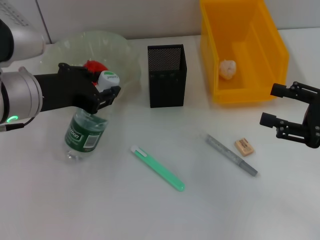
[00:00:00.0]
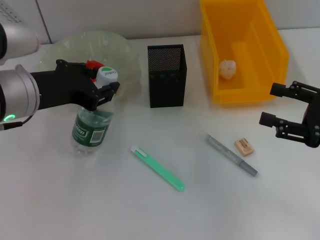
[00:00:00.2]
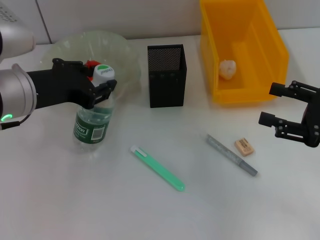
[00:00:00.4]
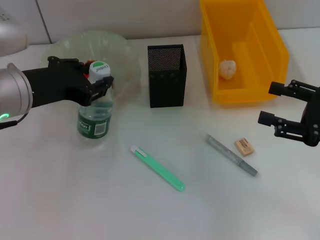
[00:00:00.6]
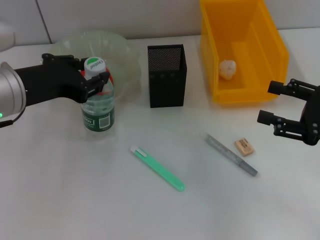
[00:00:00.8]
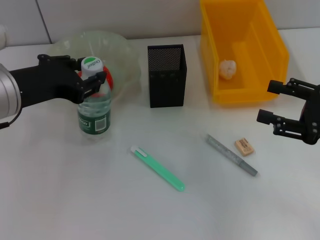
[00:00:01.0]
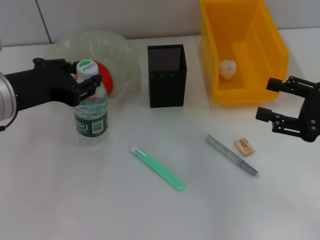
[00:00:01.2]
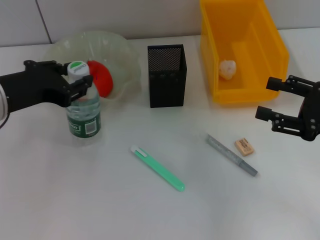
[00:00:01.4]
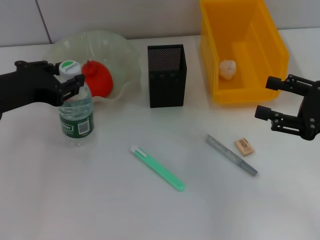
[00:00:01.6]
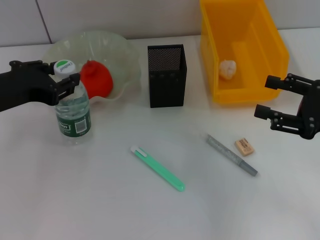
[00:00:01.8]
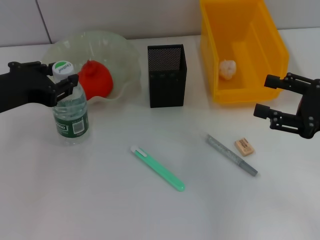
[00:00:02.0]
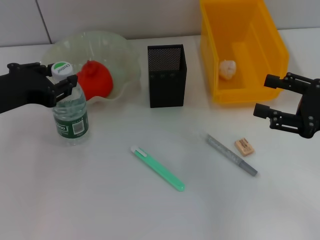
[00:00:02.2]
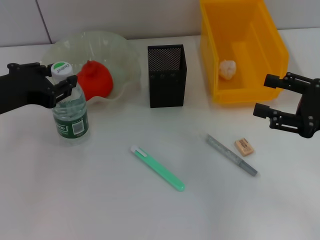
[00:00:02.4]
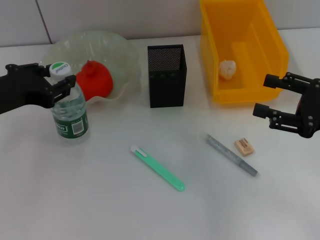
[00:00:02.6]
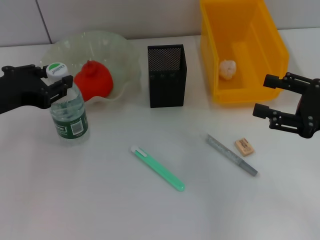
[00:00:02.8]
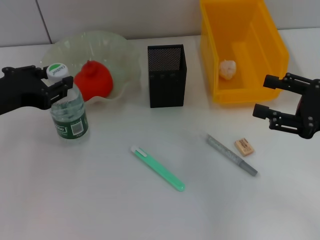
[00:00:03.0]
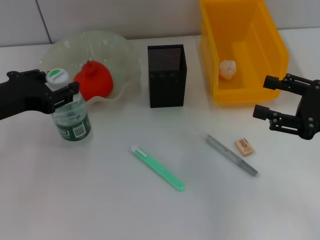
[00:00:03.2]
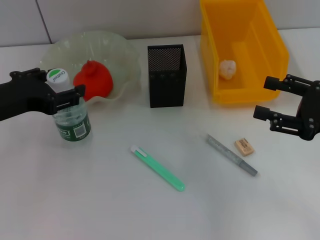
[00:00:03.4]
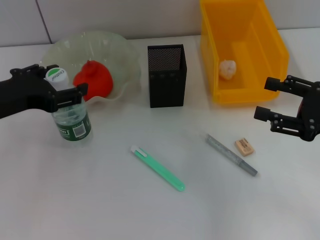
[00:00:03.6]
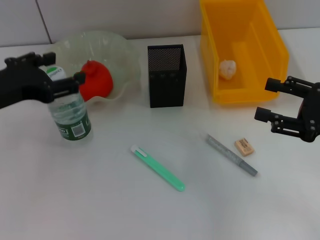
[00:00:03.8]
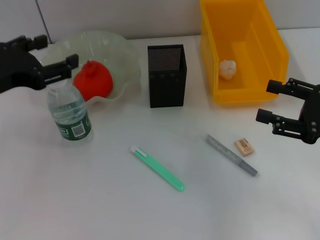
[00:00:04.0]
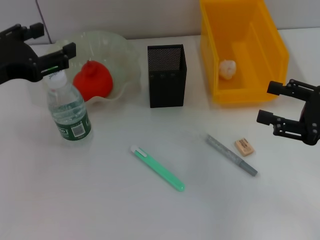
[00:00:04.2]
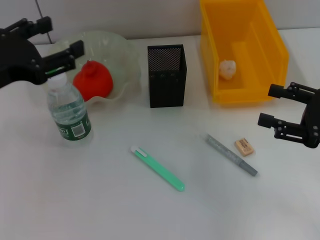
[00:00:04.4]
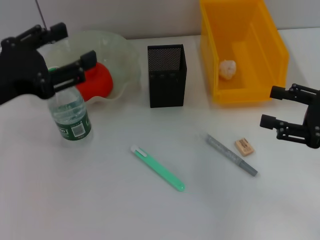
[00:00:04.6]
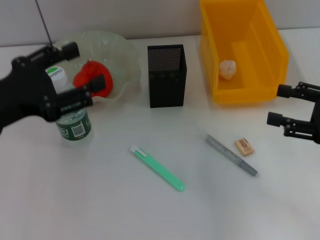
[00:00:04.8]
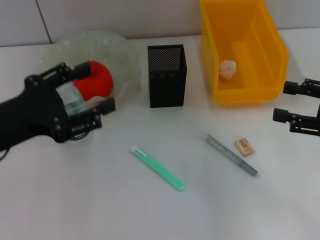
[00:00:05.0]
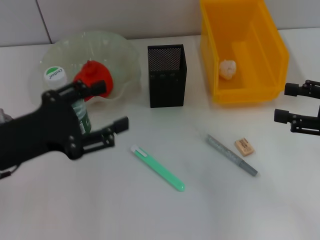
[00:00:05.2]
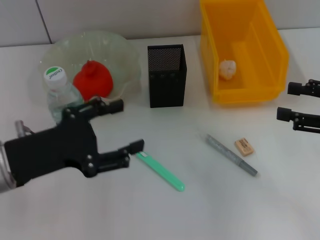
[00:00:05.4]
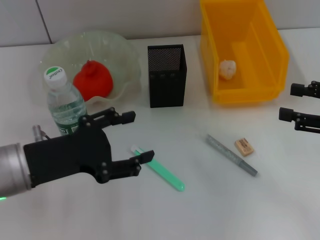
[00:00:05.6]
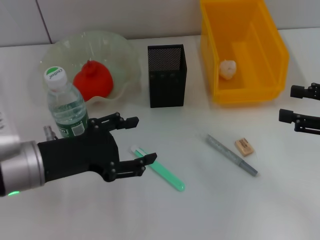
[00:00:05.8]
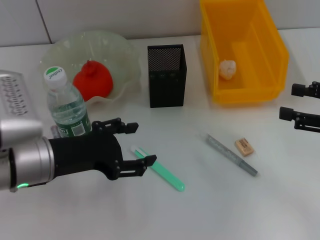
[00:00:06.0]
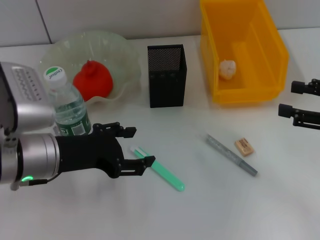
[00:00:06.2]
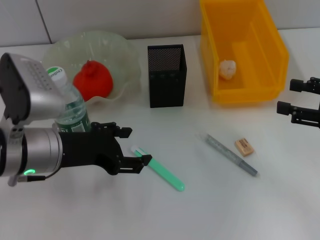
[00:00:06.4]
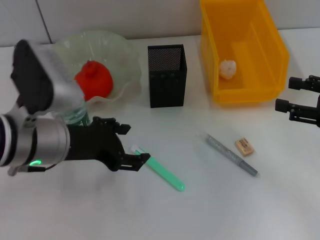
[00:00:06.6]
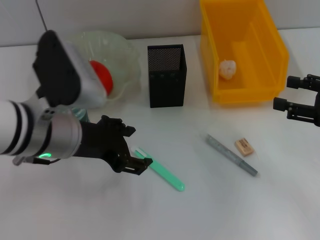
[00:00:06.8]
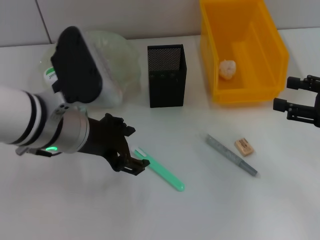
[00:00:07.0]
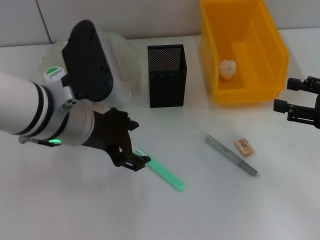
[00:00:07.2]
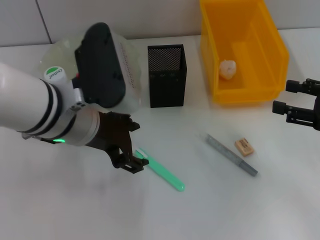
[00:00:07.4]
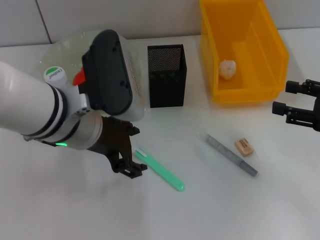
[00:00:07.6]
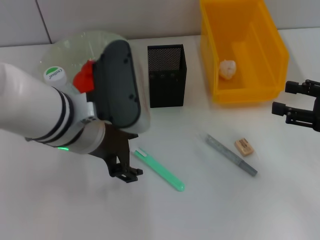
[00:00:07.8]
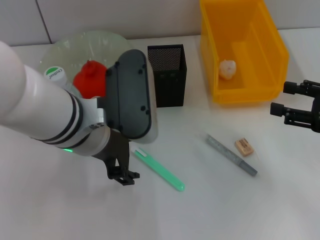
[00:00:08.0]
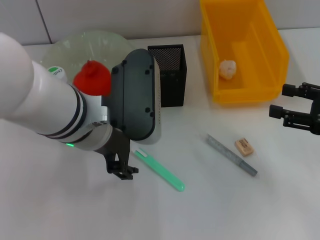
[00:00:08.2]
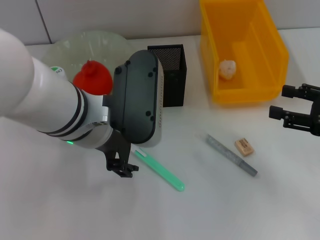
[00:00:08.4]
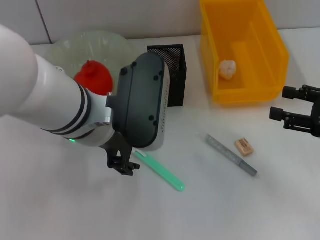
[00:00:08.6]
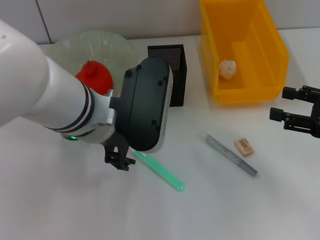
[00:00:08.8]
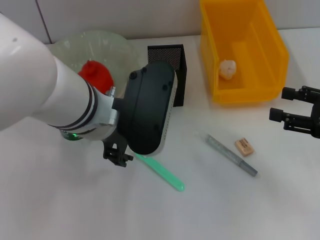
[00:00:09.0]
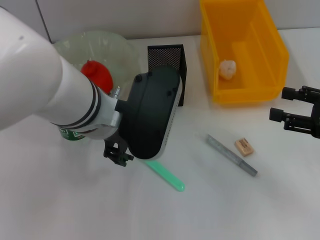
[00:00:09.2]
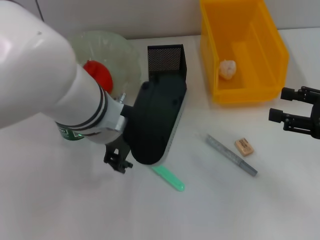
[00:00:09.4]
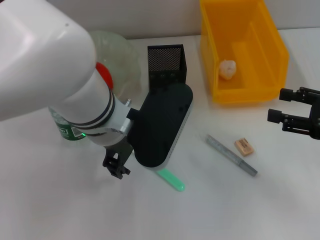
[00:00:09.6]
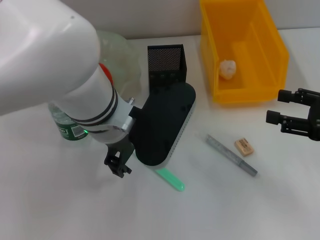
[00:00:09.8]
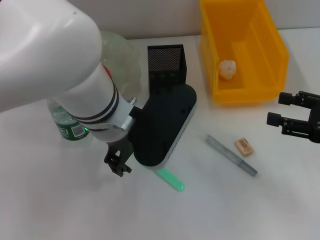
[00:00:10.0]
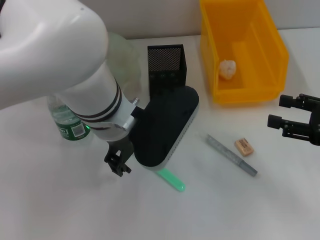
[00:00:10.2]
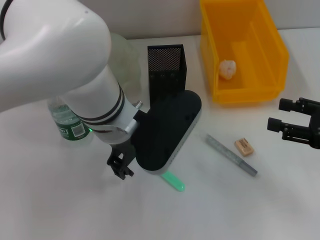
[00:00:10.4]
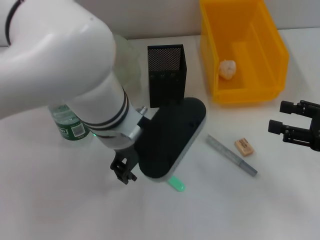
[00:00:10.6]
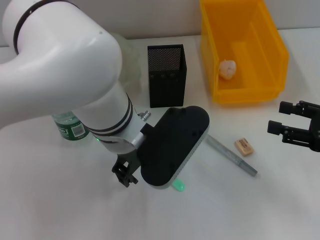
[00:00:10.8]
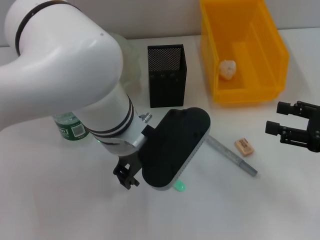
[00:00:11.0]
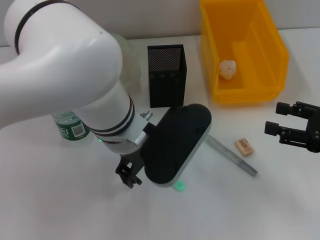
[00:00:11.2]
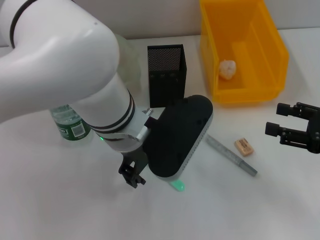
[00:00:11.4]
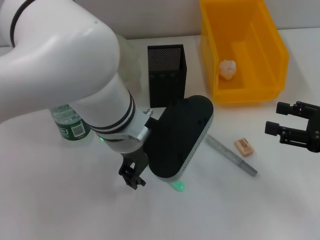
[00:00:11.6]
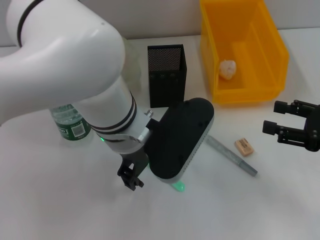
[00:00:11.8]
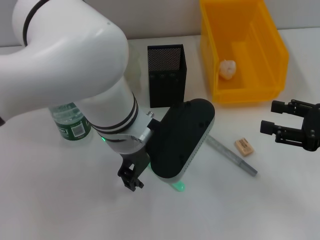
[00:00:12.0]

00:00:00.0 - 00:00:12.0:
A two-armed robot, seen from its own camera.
Step, 00:00:00.0 - 00:00:03.8: Place the water bottle on the table with the left hand.
00:00:00.0 - 00:00:01.6: The grippers stay close to where they were, moving slightly.
00:00:01.6 - 00:00:03.0: The grippers make only small movements.
00:00:03.0 - 00:00:04.4: The left gripper opens up.
00:00:04.4 - 00:00:06.0: The left gripper heads downward and to the right, covering approximately 10 cm.
00:00:06.0 - 00:00:07.6: The left gripper shifts roughly 10 cm to the right and upward.
00:00:10.4 - 00:00:12.0: The grippers make only small movements.

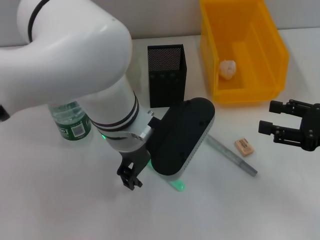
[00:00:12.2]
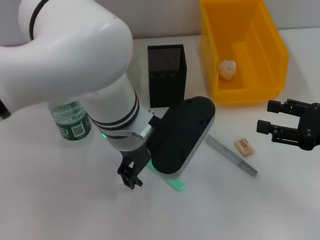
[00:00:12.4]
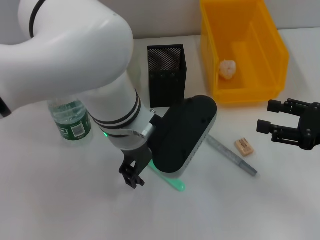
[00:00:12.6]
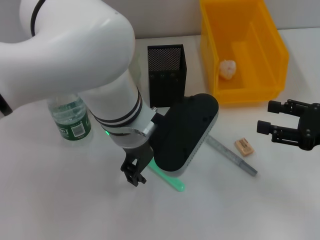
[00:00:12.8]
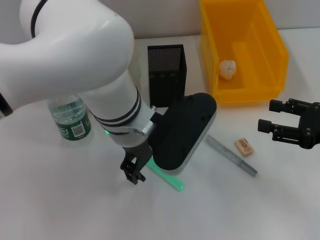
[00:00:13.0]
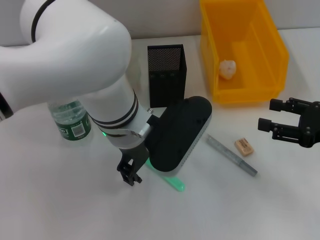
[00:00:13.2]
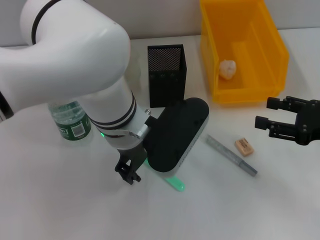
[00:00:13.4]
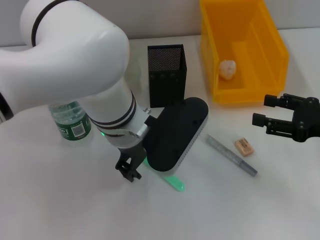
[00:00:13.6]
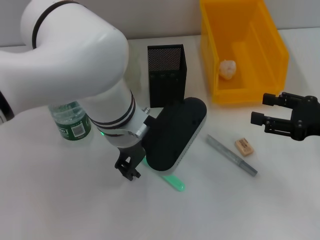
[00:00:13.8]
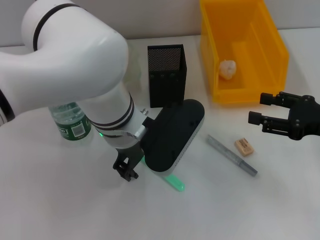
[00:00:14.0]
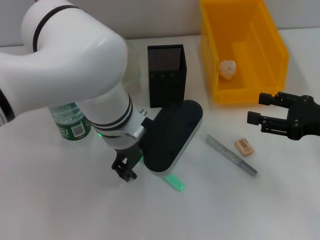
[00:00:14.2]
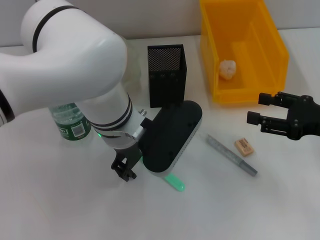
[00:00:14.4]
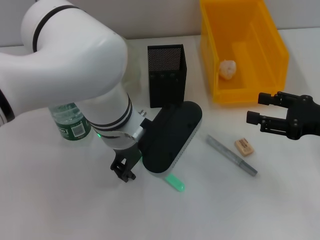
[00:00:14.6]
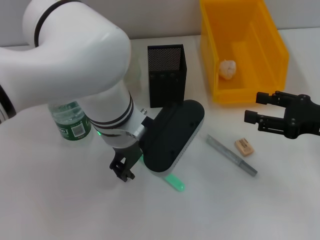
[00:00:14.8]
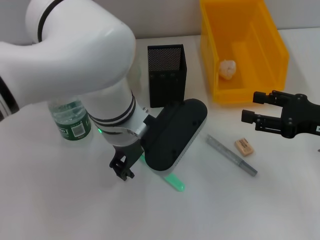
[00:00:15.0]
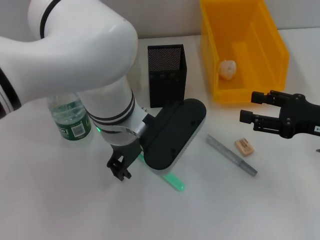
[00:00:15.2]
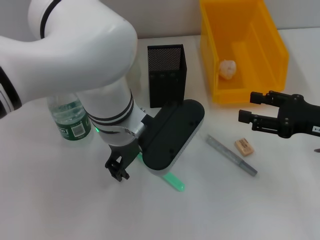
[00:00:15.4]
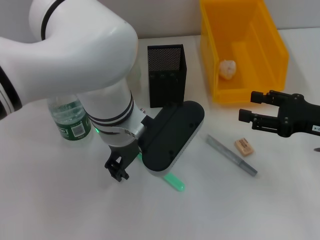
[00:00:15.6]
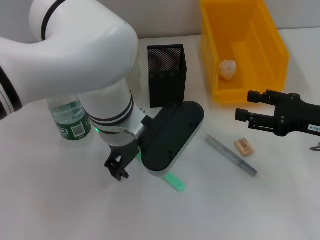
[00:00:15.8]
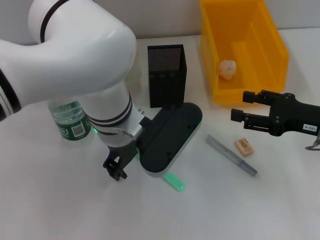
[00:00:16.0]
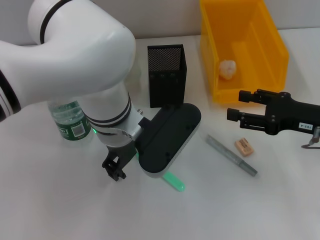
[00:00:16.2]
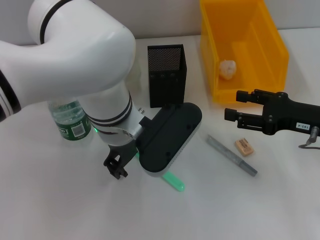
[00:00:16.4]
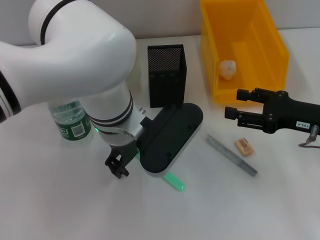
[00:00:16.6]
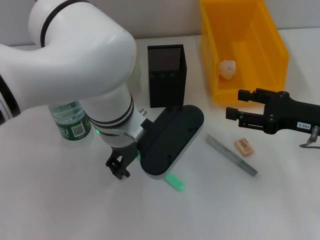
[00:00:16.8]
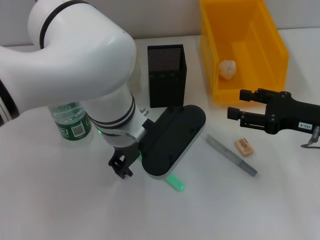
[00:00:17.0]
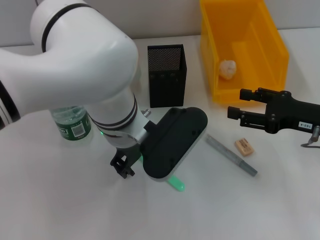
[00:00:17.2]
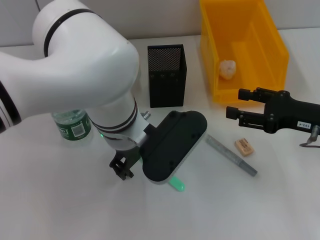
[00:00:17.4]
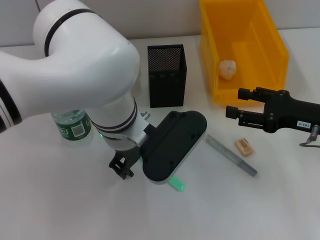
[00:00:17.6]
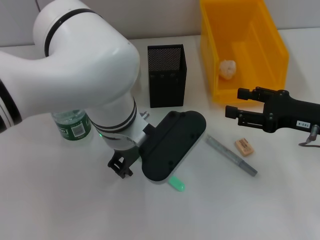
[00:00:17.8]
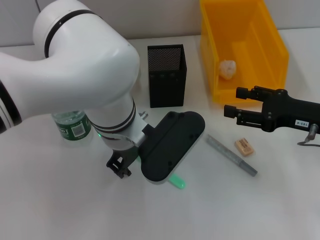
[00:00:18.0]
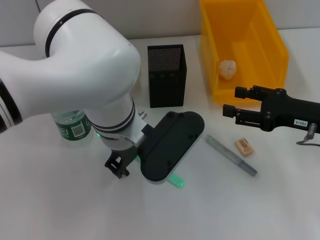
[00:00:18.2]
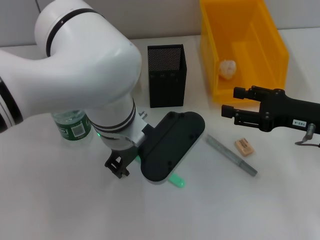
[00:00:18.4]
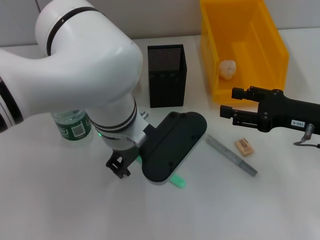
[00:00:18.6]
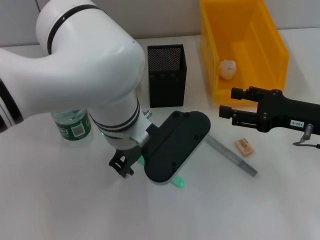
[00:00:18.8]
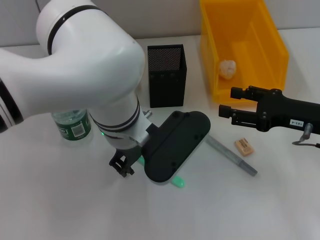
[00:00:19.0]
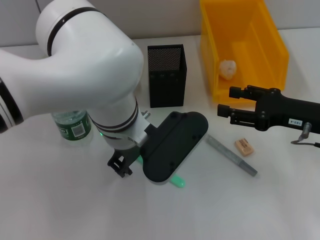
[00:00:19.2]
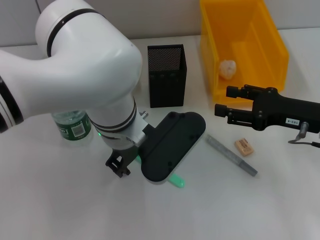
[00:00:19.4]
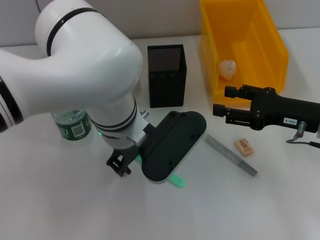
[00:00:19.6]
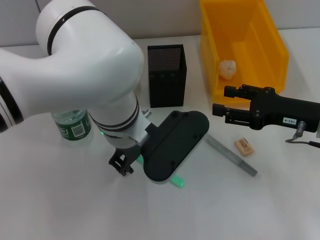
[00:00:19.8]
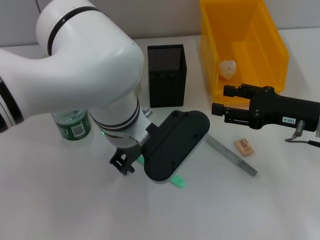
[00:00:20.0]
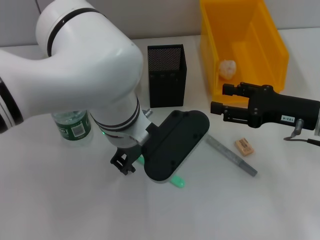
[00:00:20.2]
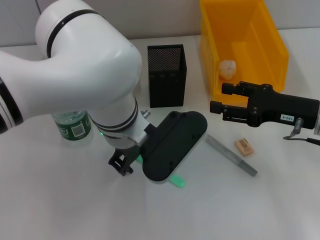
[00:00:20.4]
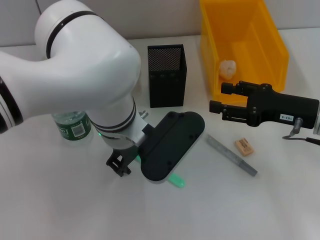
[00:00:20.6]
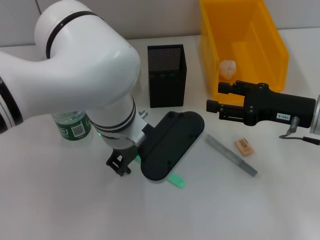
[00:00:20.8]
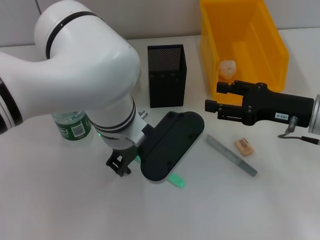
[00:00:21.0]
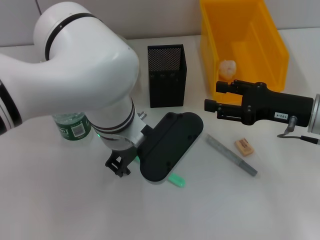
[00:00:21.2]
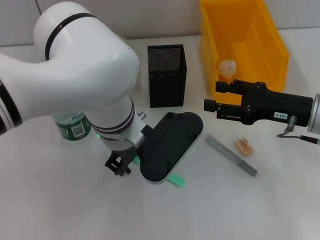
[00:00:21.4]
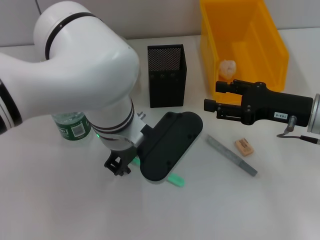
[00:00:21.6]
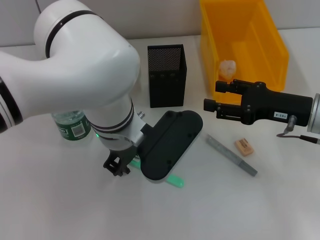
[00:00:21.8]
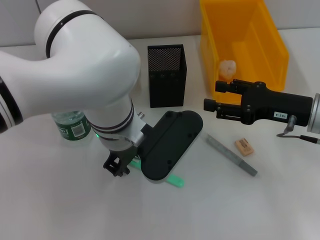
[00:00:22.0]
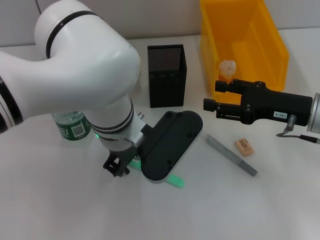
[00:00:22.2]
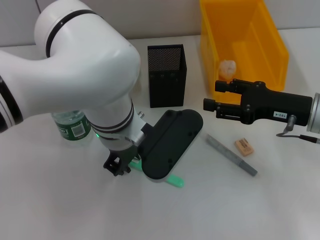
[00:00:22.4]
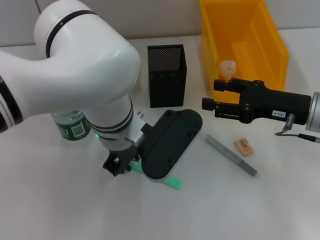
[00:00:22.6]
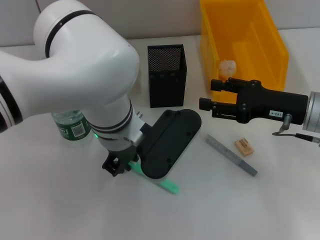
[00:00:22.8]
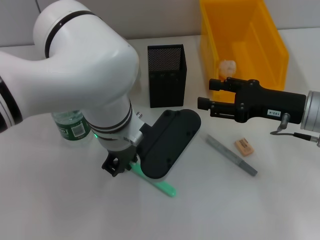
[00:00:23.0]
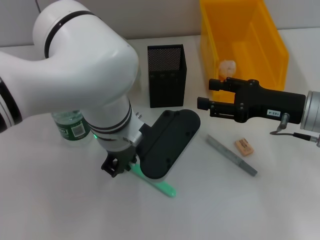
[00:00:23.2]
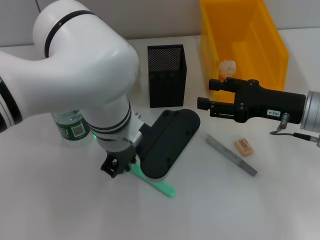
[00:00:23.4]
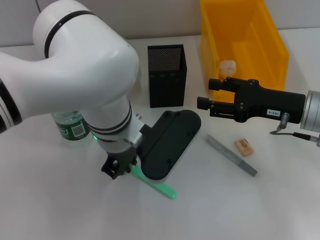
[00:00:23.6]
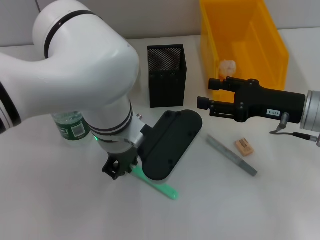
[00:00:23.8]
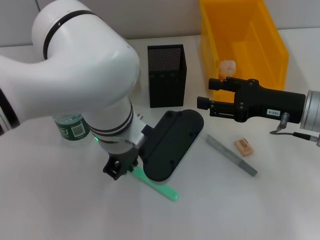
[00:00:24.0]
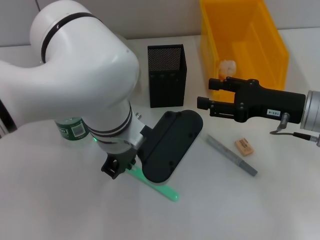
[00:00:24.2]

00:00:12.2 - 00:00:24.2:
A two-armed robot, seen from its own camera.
00:00:12.2 - 00:00:16.6: The grippers move only a little.
00:00:16.6 - 00:00:18.2: Neither gripper changes place.
00:00:18.2 - 00:00:19.8: The grippers stay close to where they were, moving slightly.
00:00:19.8 - 00:00:21.2: Both grippers stay about where they are.
00:00:21.2 - 00:00:22.6: Both grippers stay about where they are.
00:00:22.6 - 00:00:24.2: Neither gripper changes place.
